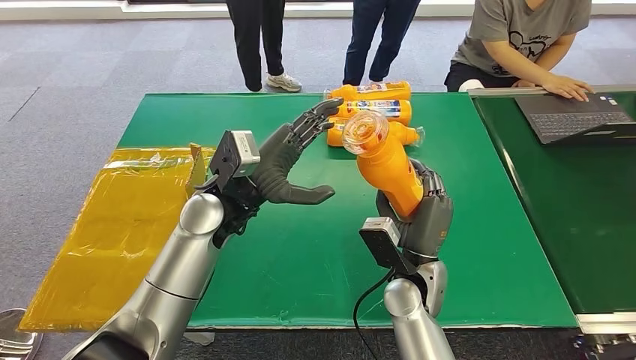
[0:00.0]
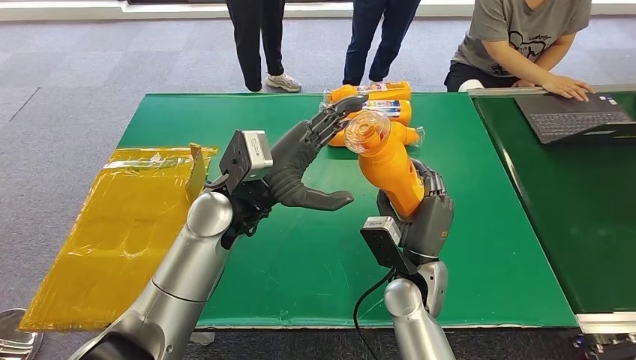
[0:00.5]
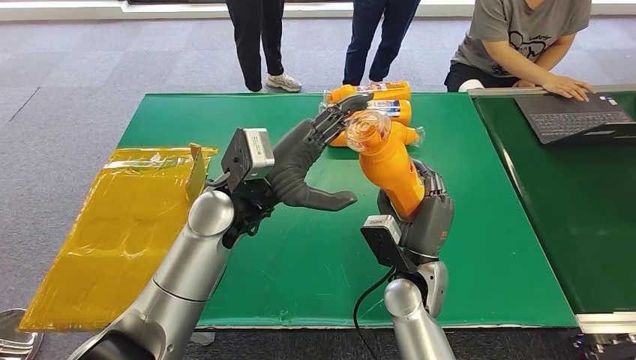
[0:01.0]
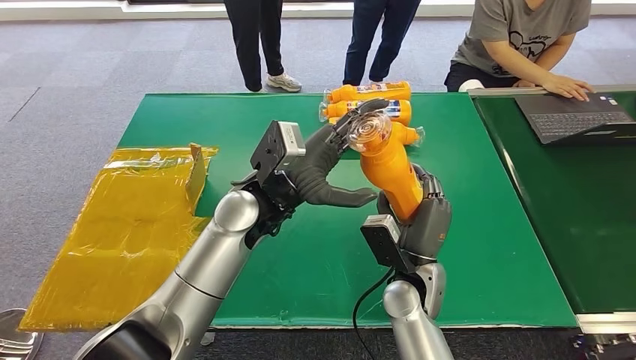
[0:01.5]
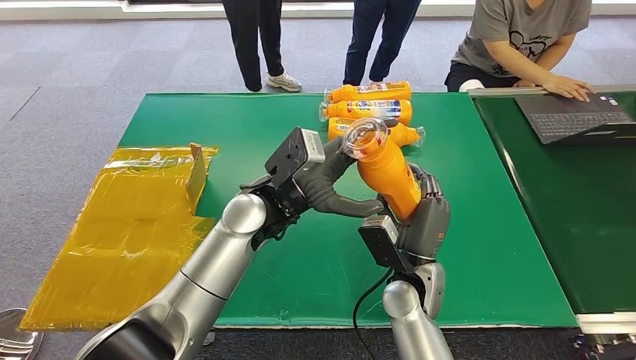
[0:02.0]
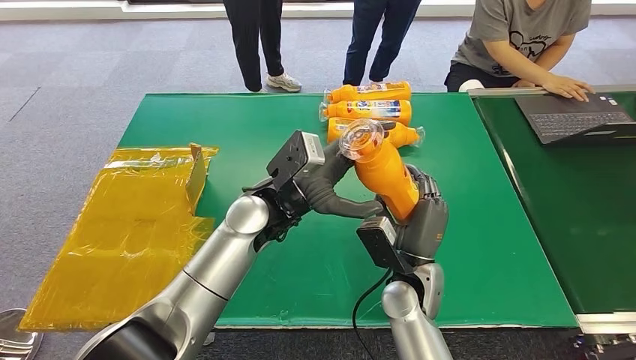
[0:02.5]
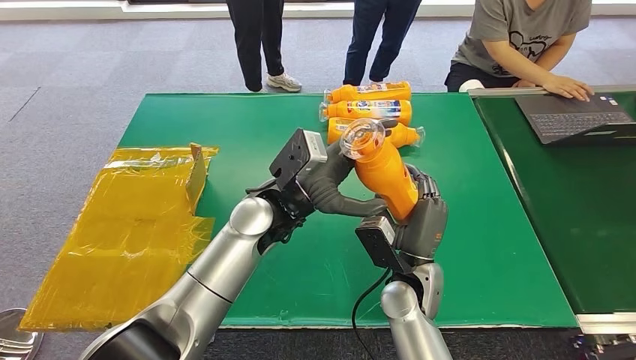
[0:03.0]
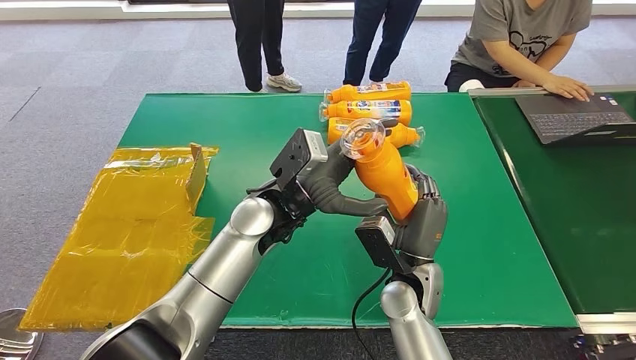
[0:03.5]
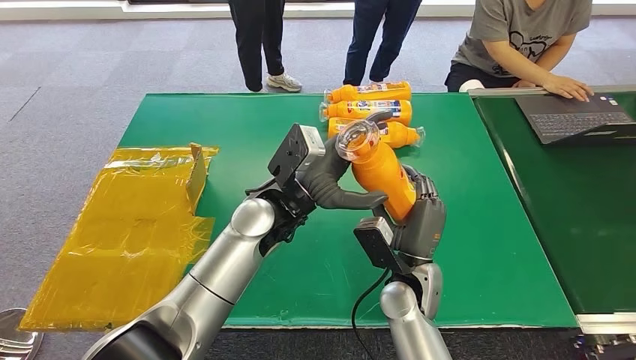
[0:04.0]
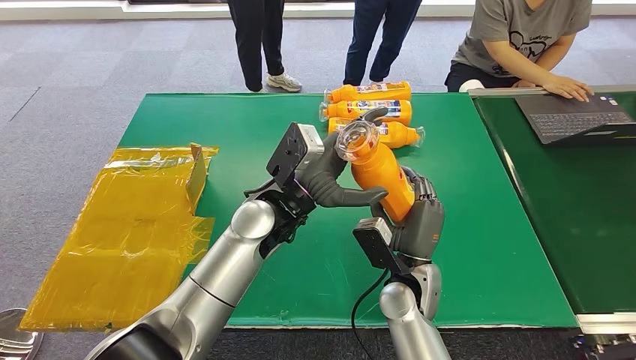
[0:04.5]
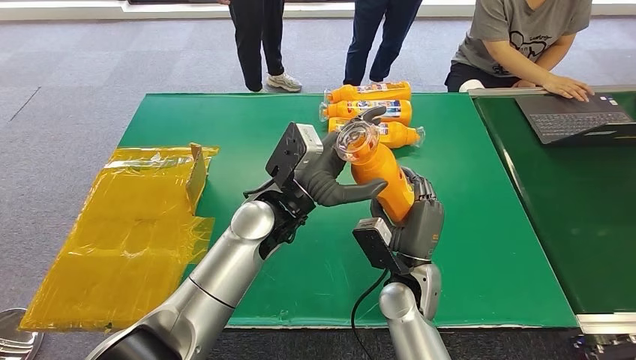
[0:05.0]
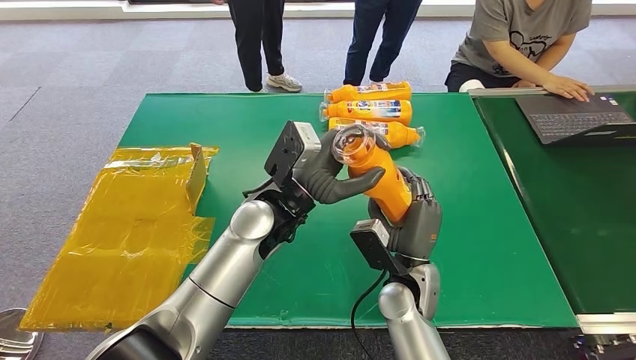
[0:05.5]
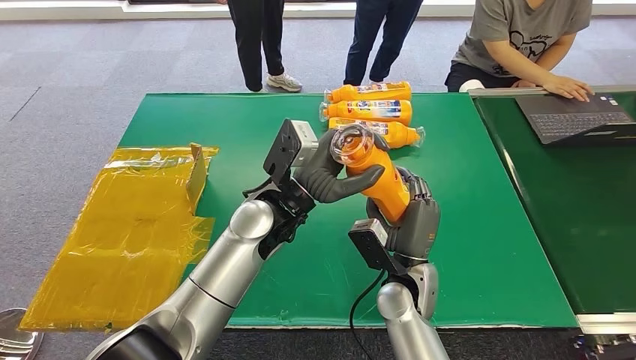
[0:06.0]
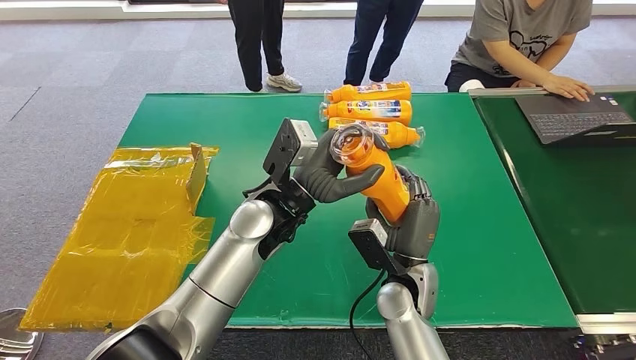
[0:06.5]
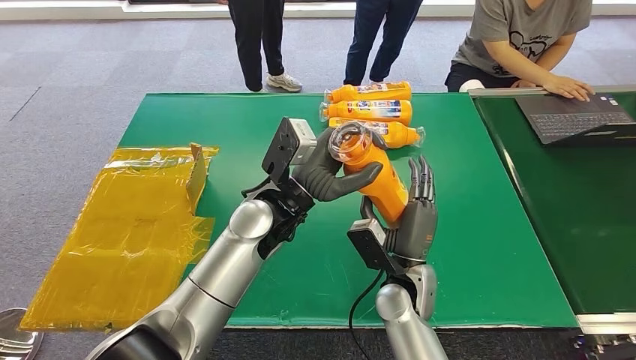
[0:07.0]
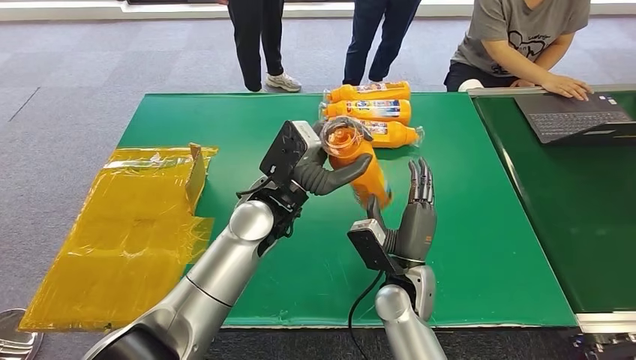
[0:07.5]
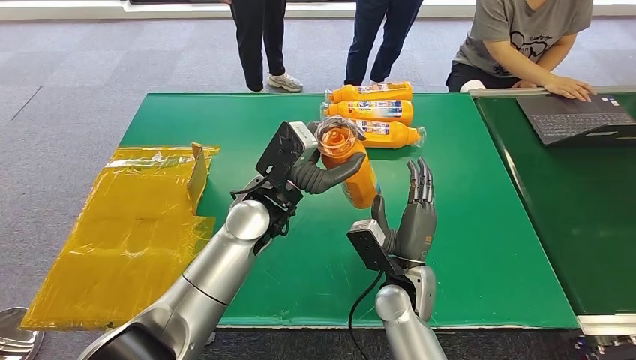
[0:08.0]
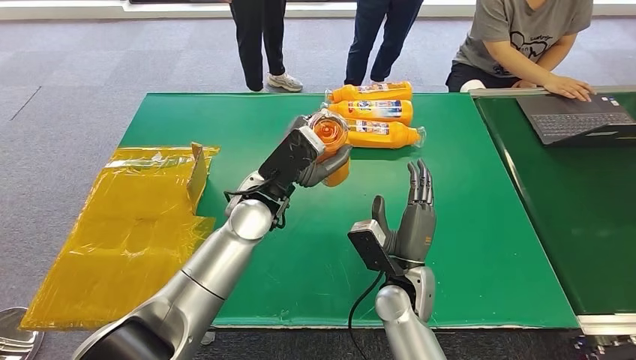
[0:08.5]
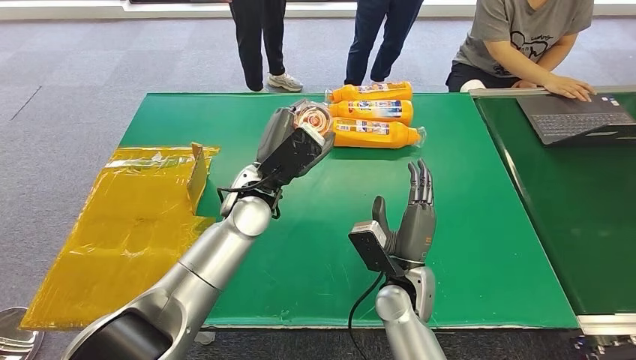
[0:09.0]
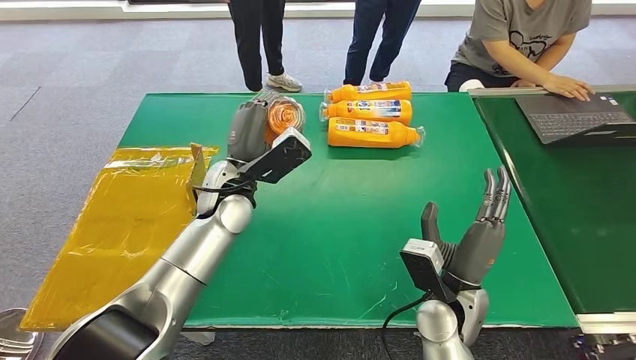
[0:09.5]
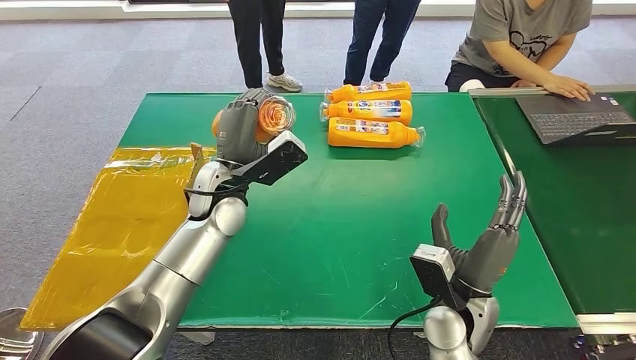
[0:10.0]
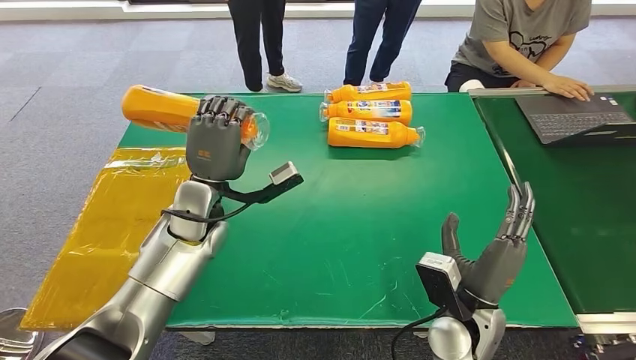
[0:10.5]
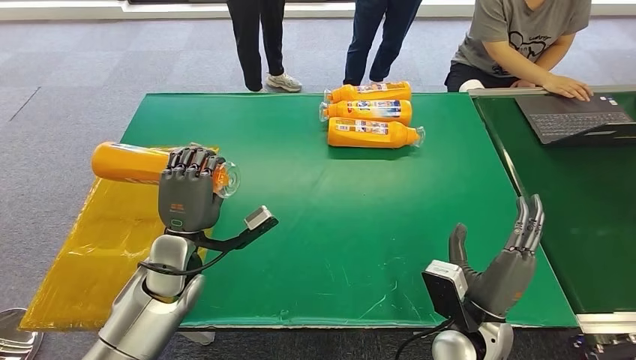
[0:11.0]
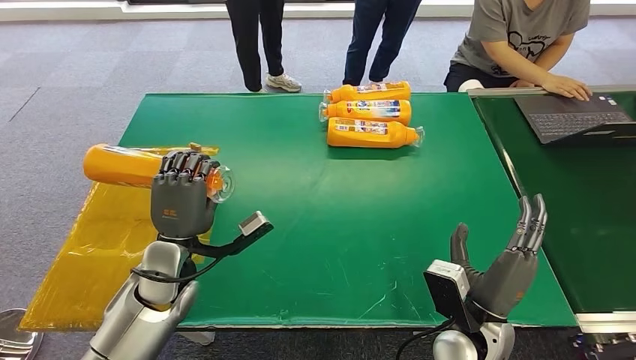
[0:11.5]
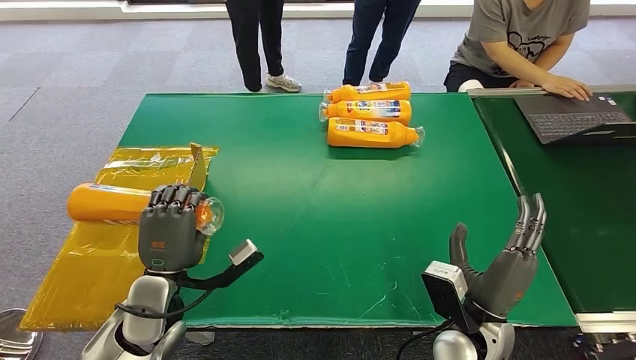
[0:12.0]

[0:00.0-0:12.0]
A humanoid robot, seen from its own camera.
Step, 0:00.0 to 0:12.0: Turn the bottle to the front side.
0:00.0 to 0:02.0: The left hand shifts approximately 5 cm to the right.
0:02.0 to 0:04.0: The hands make only small movements.
0:04.0 to 0:06.0: Neither hand changes place.
0:06.0 to 0:08.0: There are only small adjustments of the hands.

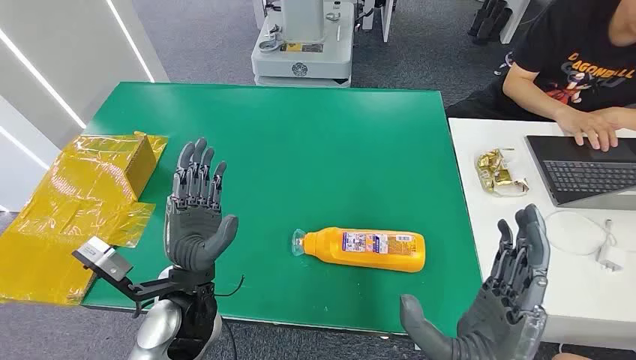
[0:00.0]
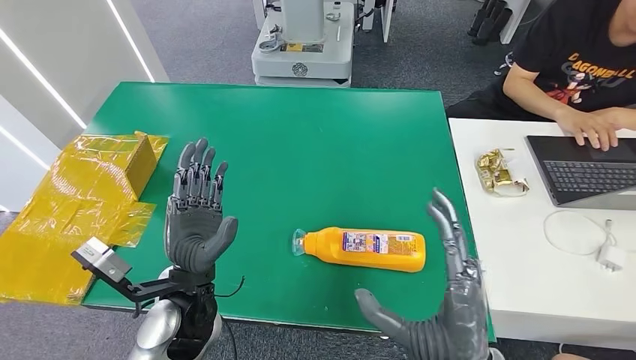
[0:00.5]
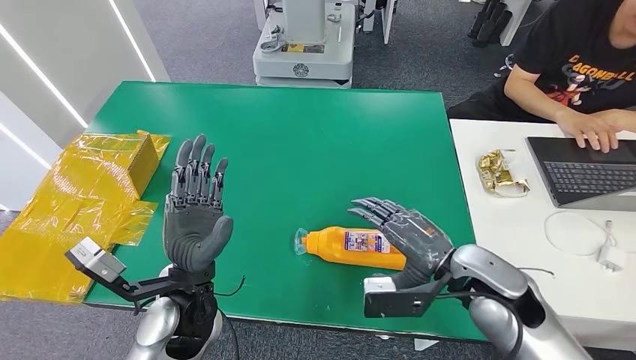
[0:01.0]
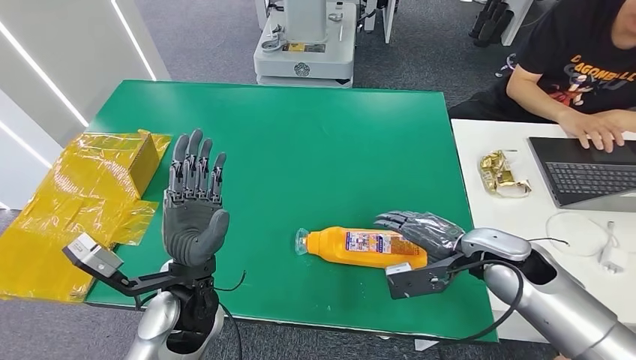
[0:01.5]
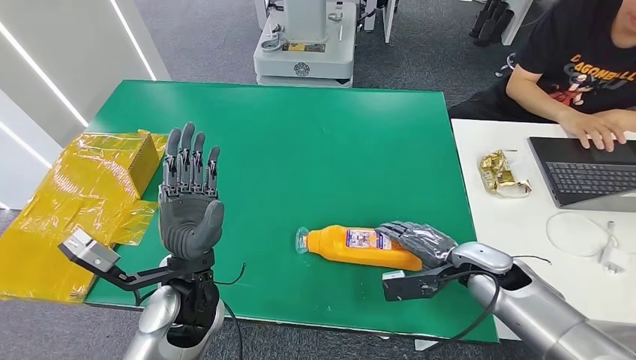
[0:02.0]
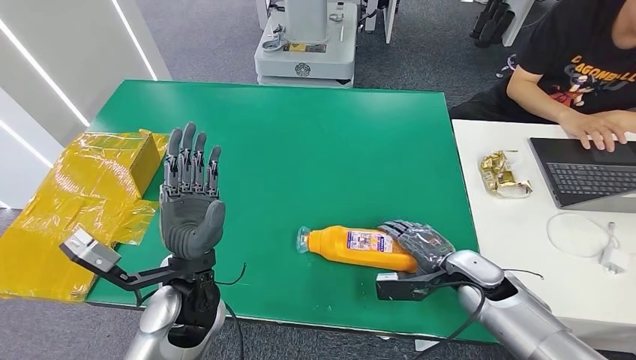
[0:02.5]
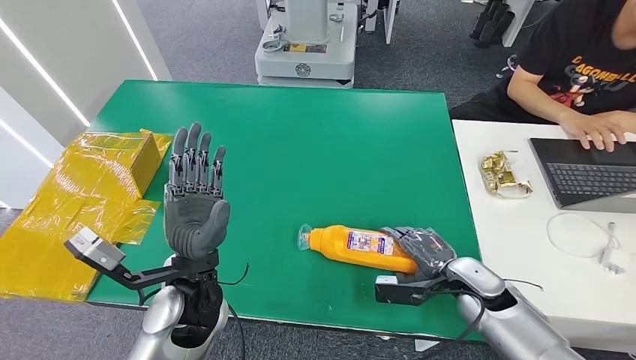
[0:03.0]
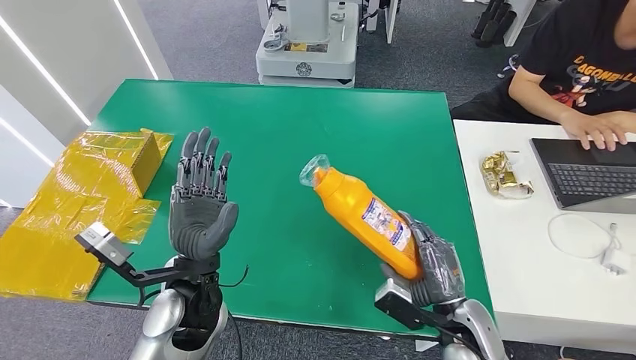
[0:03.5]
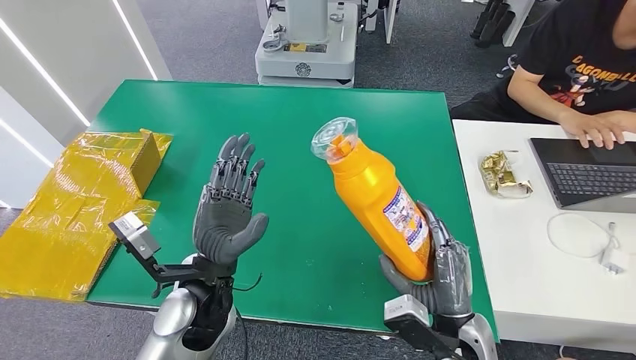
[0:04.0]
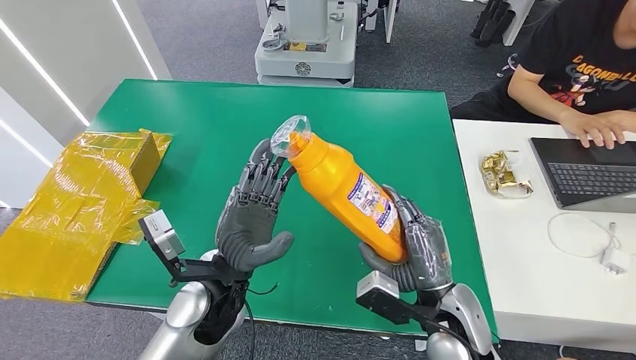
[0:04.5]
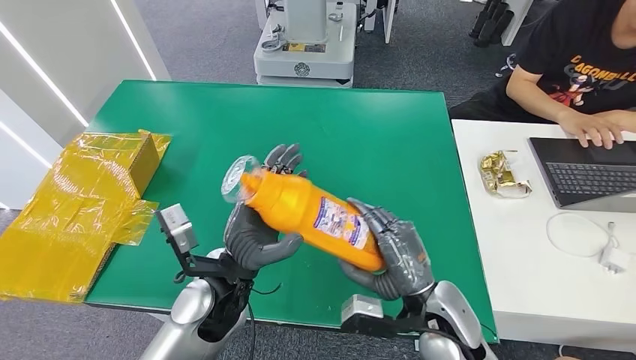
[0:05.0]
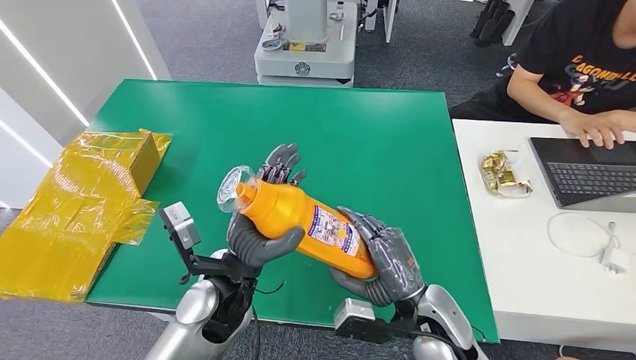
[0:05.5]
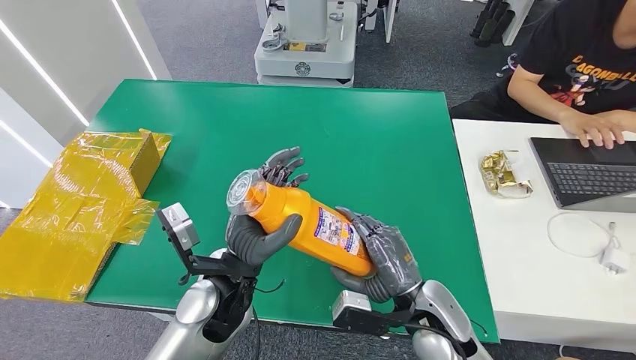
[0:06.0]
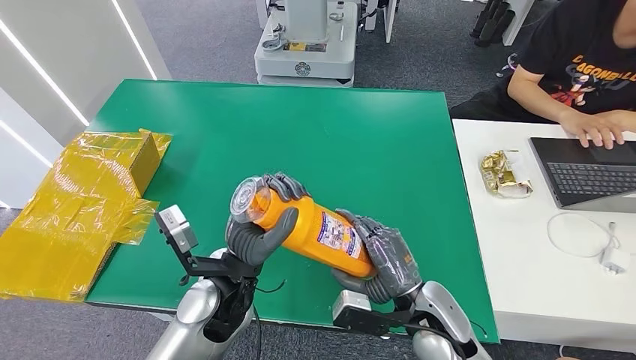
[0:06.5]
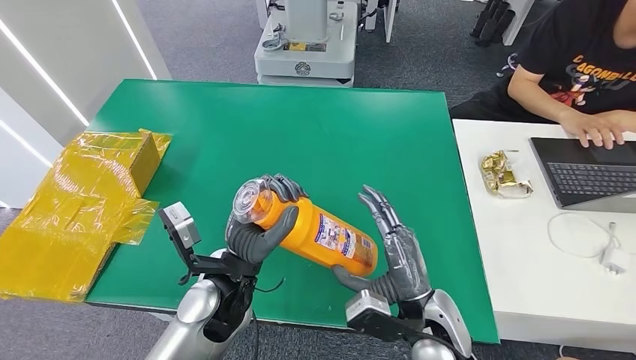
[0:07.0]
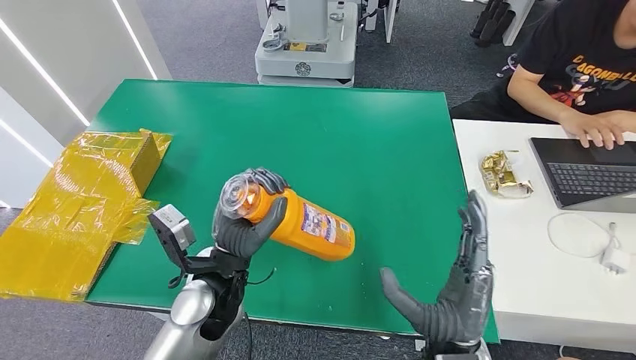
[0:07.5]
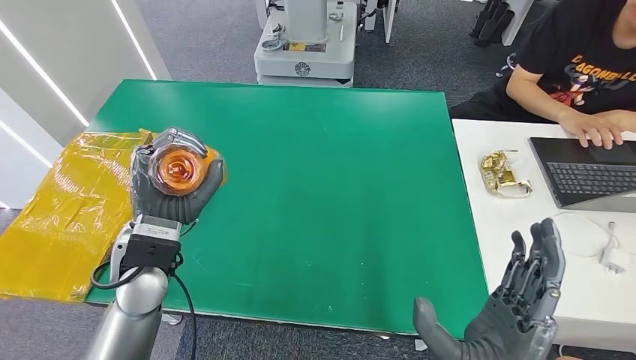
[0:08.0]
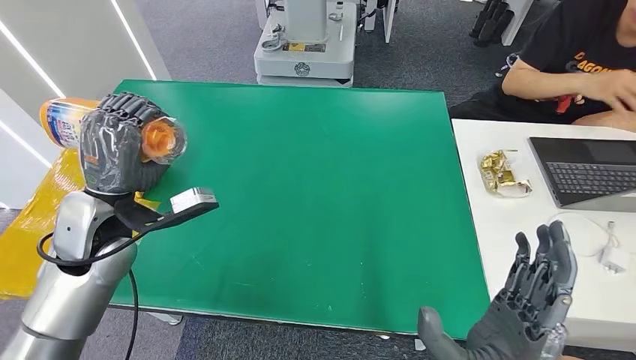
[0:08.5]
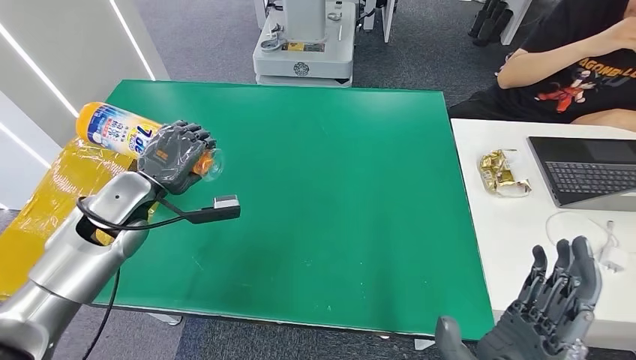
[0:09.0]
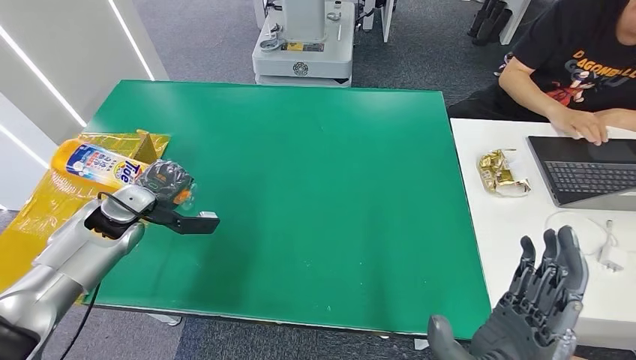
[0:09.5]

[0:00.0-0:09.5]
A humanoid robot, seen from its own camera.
Step, 0:00.0 to 0:03.5: Pick up the bottle from the table.
0:04.0 to 0:05.5: The right hand shifts by roughly 5 cm.
0:05.5 to 0:07.5: The right hand is displaced backward by approximately 5 cm.
